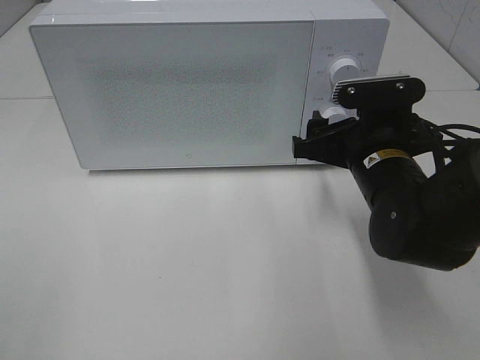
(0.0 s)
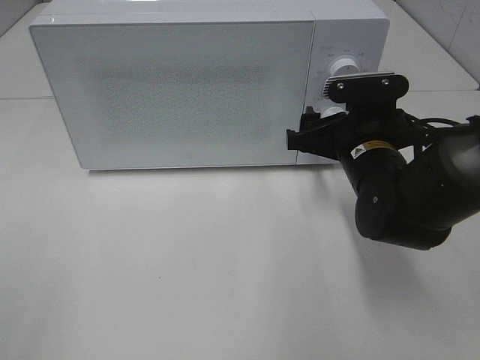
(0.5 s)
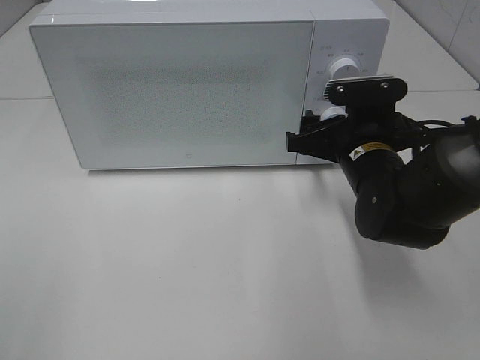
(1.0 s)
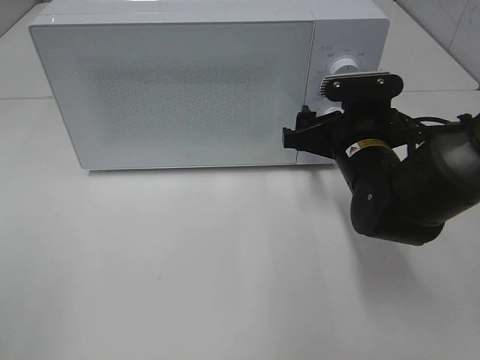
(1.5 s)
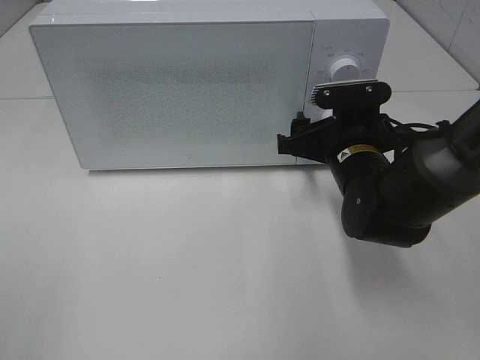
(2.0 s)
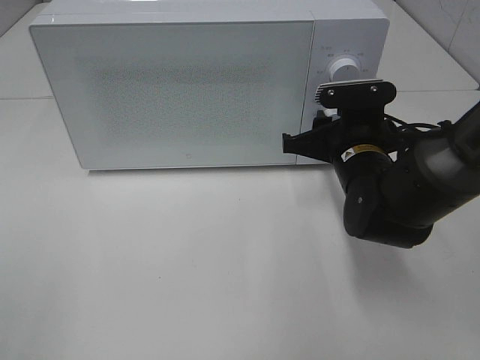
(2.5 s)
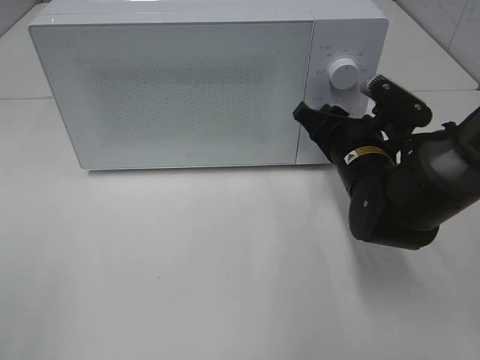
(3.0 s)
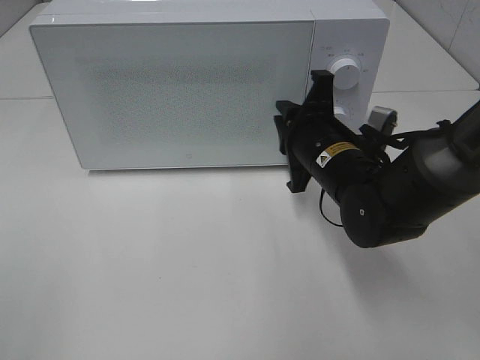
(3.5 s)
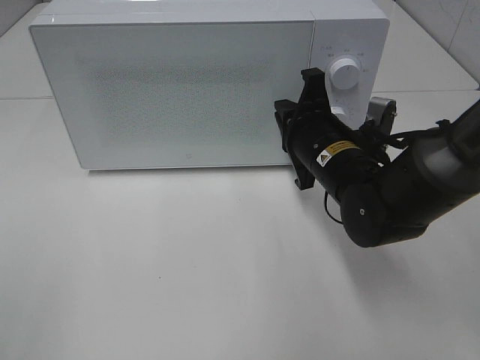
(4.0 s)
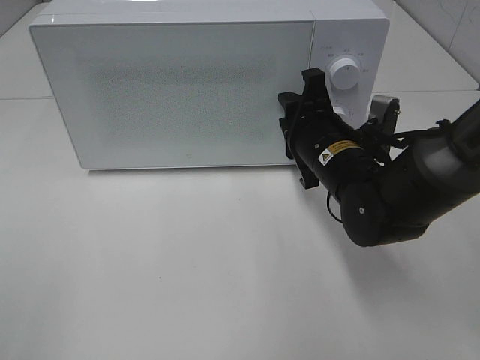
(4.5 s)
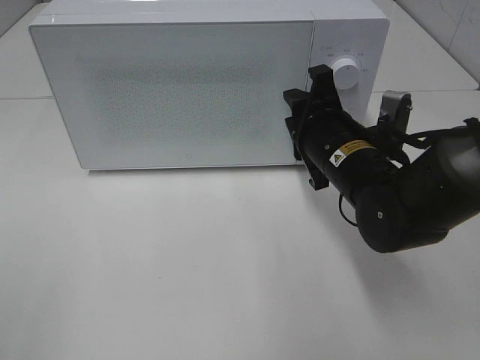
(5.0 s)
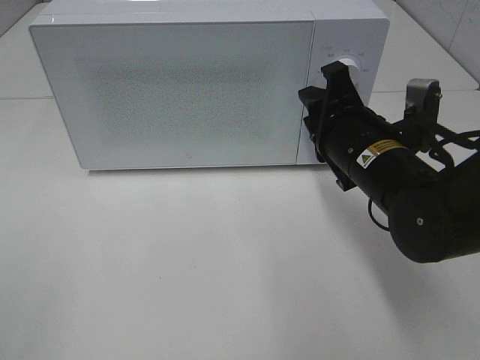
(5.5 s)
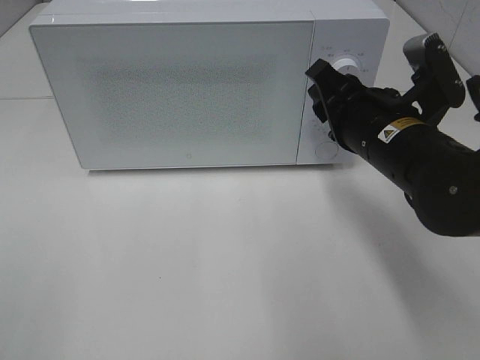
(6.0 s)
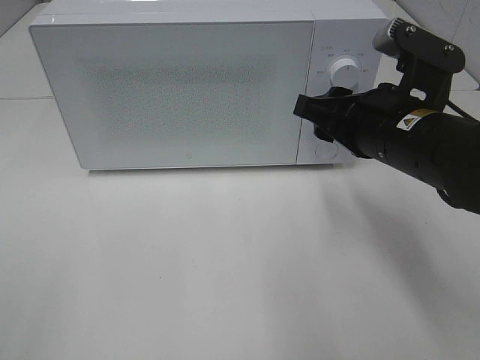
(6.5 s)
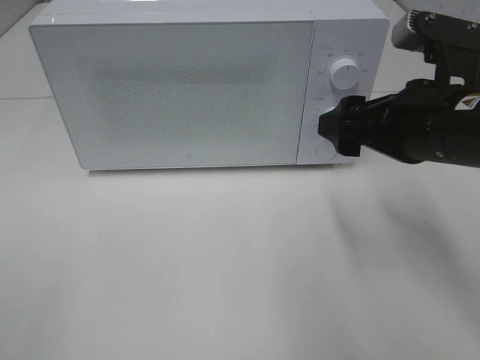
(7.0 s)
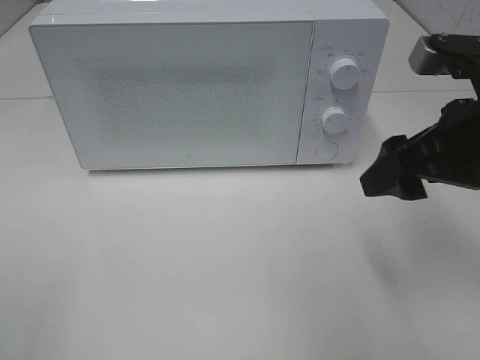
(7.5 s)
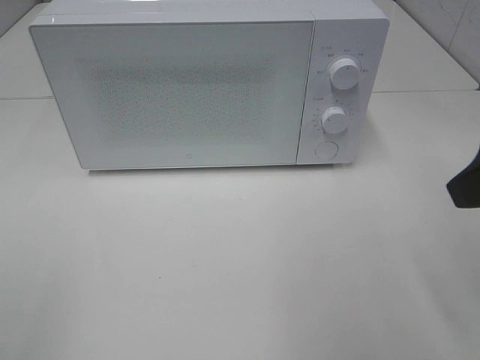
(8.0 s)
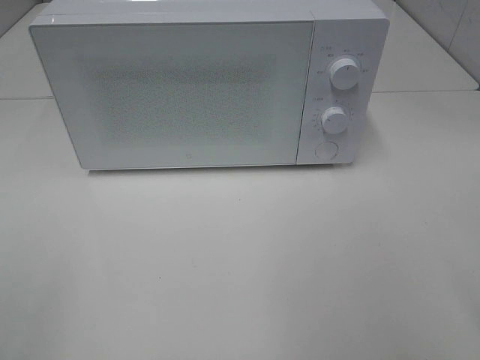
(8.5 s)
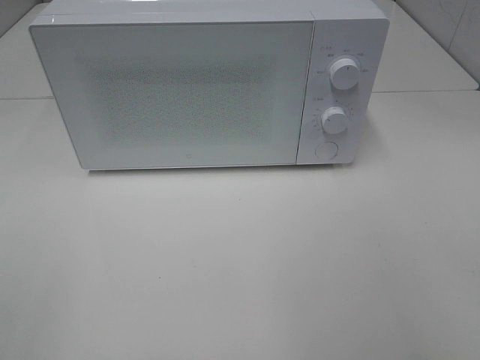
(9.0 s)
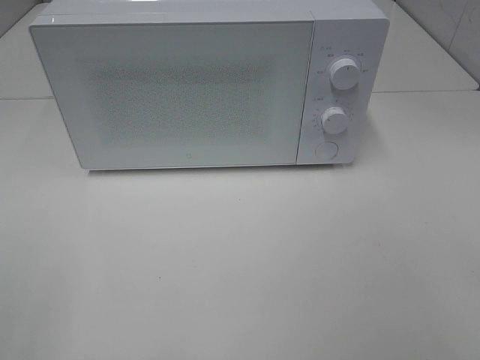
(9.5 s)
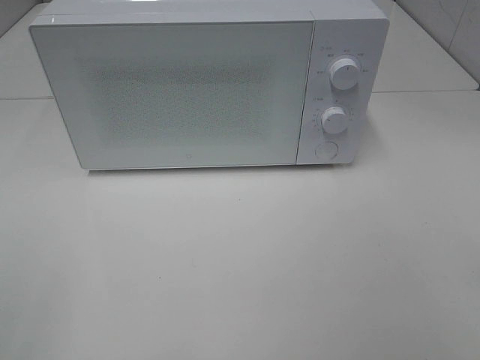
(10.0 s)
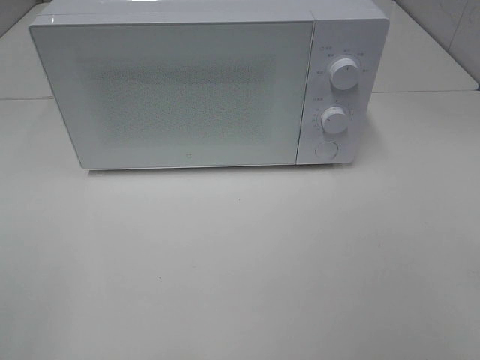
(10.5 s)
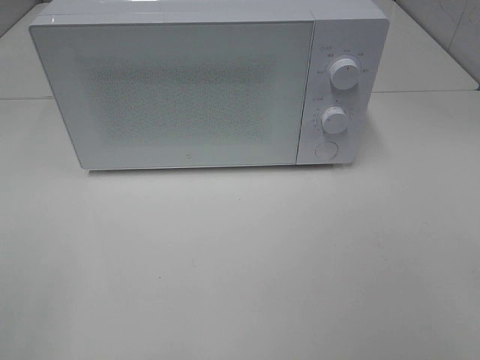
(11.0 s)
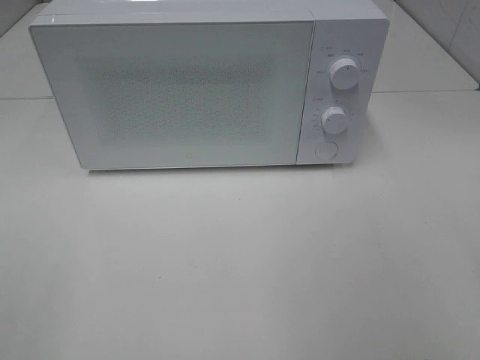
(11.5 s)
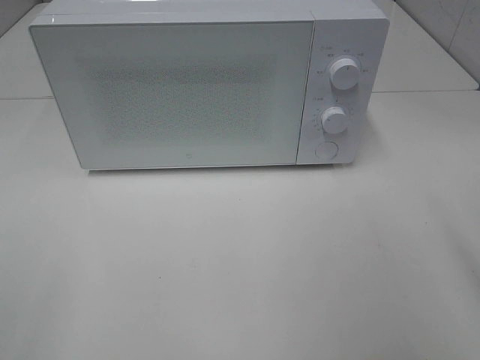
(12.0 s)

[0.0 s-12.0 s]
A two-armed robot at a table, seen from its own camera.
Task of the whole recording: Heat the burger.
Step, 0.0 to 3.0 s: Right hand: twist timer button.
0.0 to 2.0 s: The right gripper ends up some 5 cm from where it was.
2.0 to 4.0 s: The right gripper closes up.
4.0 to 6.0 s: The right gripper goes roughly 5 cm upward.
6.0 to 8.0 s: The right gripper travels upward, backward and to the right by approximately 20 cm, and opens.
8.0 to 10.0 s: The right gripper travels backward by approximately 15 cm.

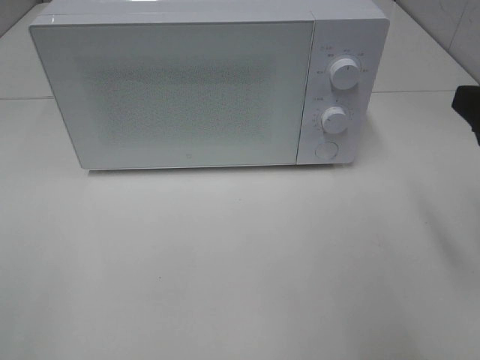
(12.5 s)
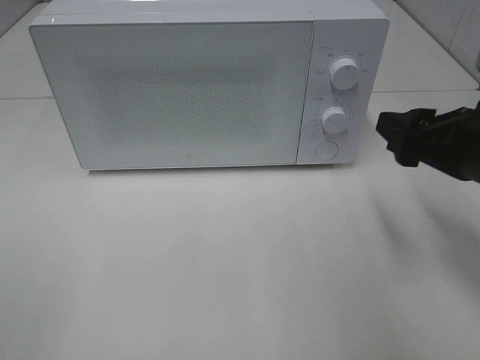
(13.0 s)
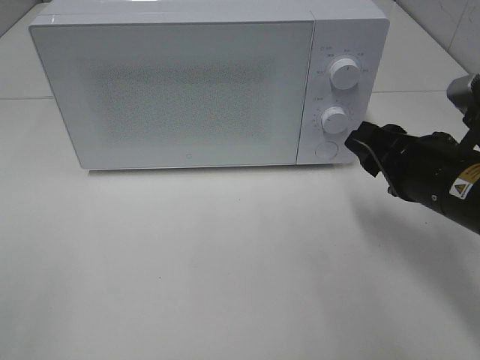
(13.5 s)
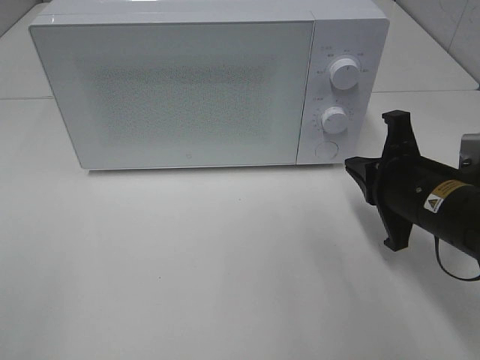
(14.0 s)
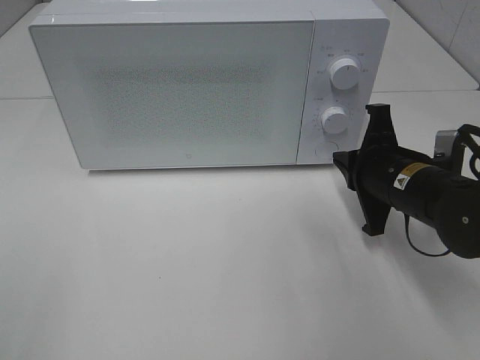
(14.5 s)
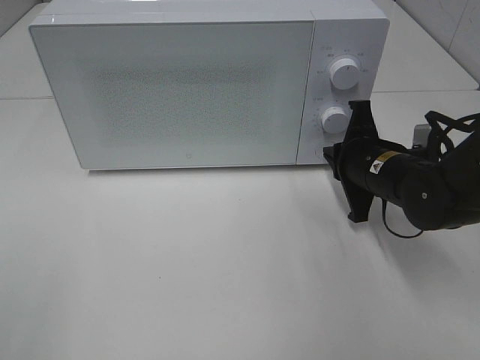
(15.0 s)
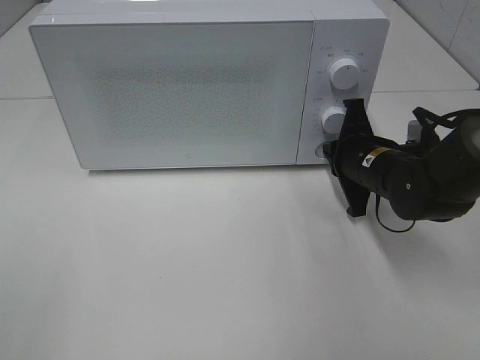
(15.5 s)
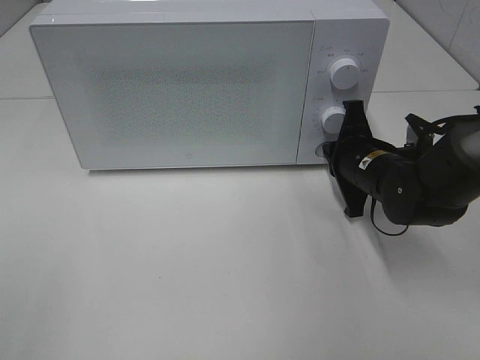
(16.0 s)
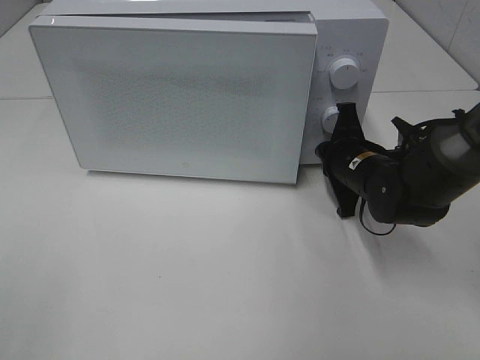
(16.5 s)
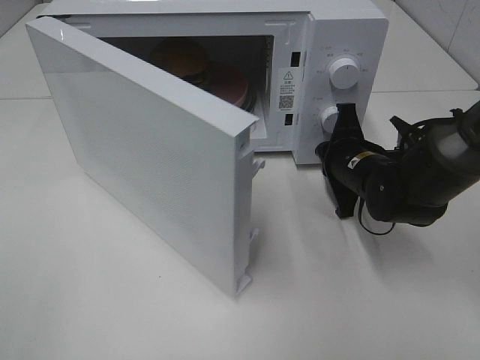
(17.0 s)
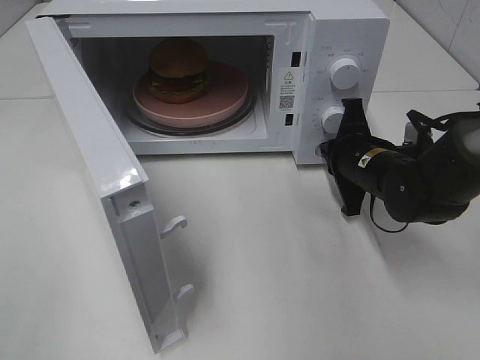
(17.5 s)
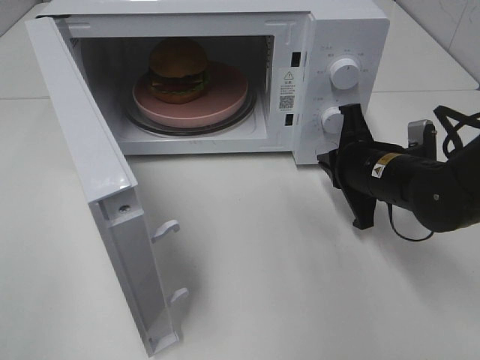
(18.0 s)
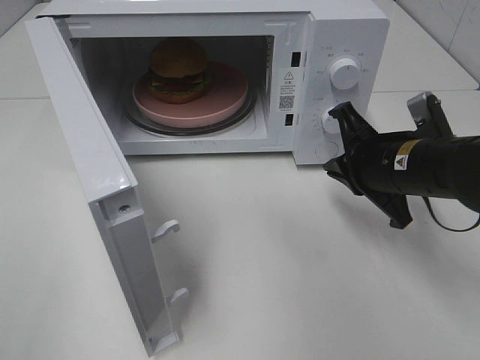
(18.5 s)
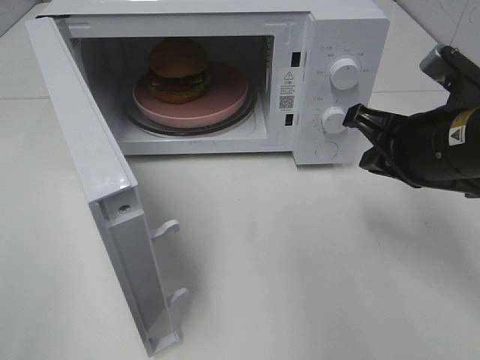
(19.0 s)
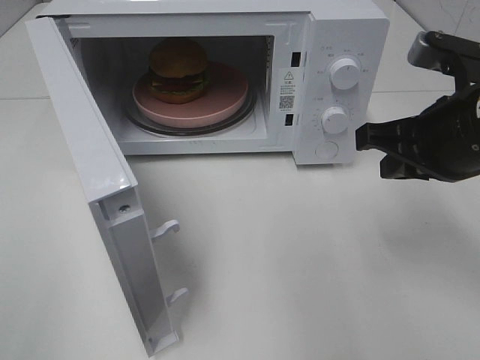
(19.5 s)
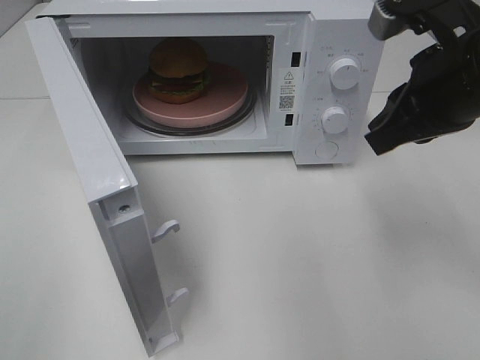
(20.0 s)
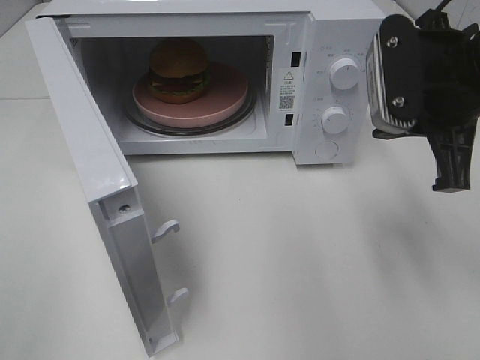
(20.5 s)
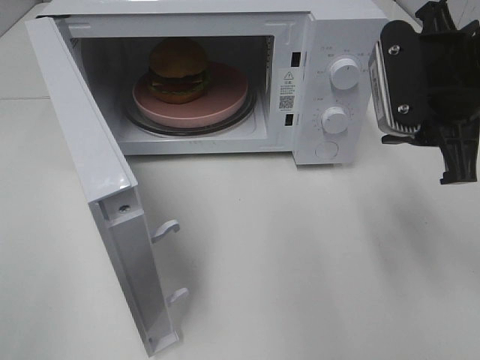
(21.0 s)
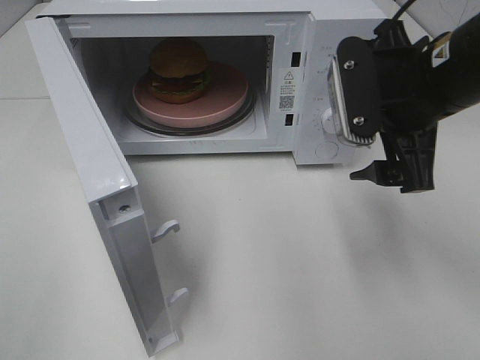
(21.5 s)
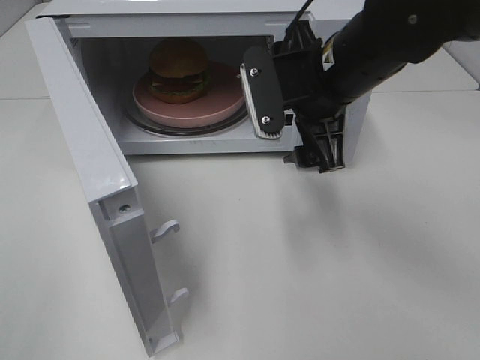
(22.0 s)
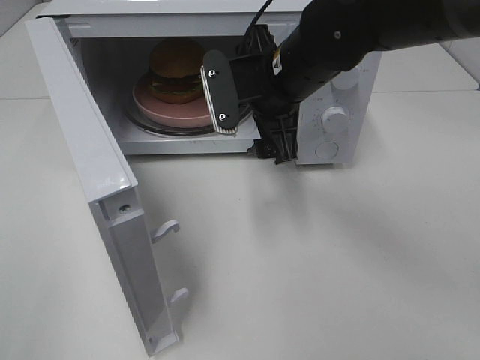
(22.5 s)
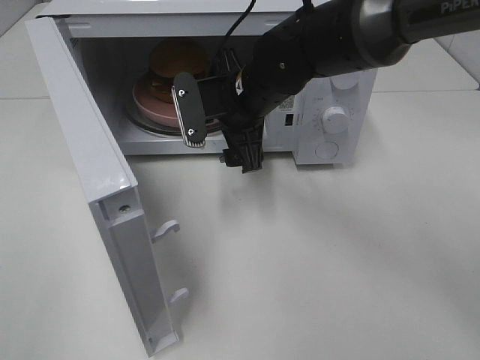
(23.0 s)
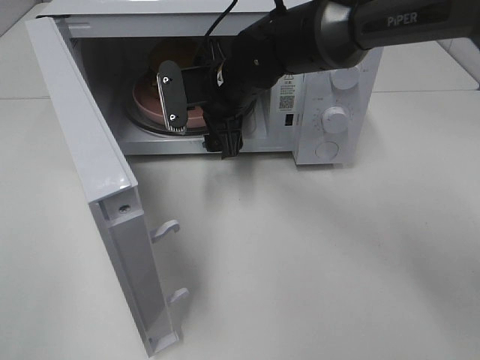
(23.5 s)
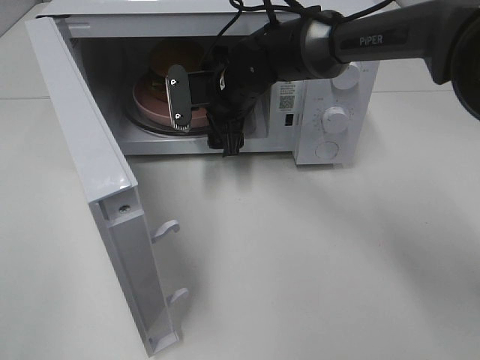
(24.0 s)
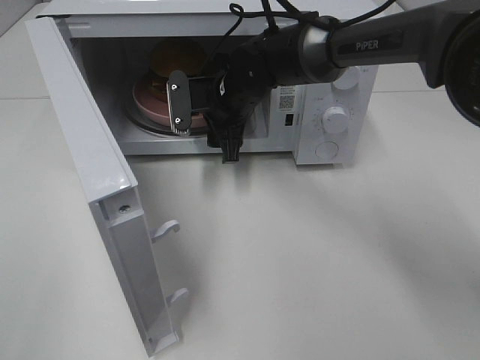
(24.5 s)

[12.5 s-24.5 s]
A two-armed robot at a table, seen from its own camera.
Task of the whole recording: Heat the burger.
Step, 12.5 to 17.5 s: Right hand: press the switch.
12.5 to 14.5 s: The right gripper goes approximately 20 cm downward, forward and to the left, and closes its fingers.
14.5 to 16.5 s: The right gripper heads forward, covering about 5 cm.
16.5 to 18.5 s: The right gripper is displaced backward and upward by some 10 cm.
18.5 to 20.5 s: The right gripper moves upward, some 15 cm.
20.5 to 22.5 s: The right gripper heads to the left, forward and downward, covering approximately 15 cm, and opens.
22.5 to 24.5 s: The right gripper moves forward, downward and to the left, approximately 15 cm.

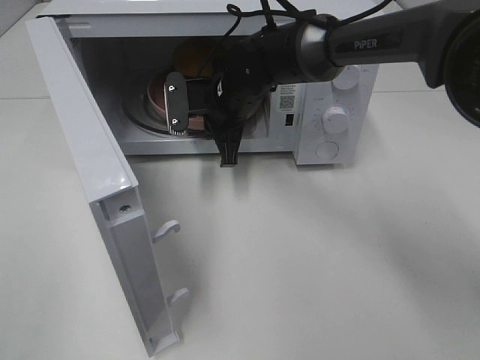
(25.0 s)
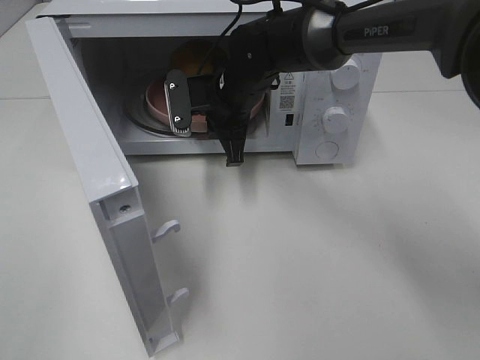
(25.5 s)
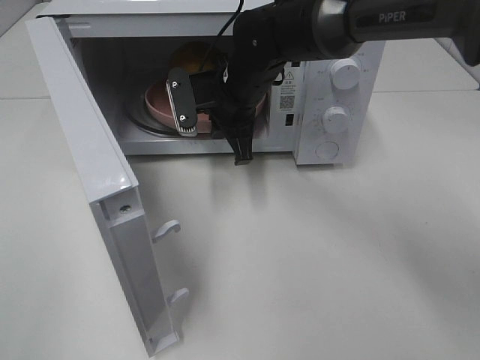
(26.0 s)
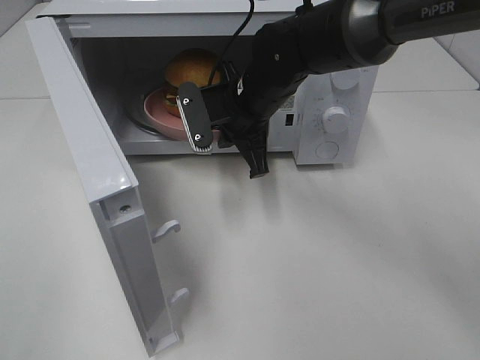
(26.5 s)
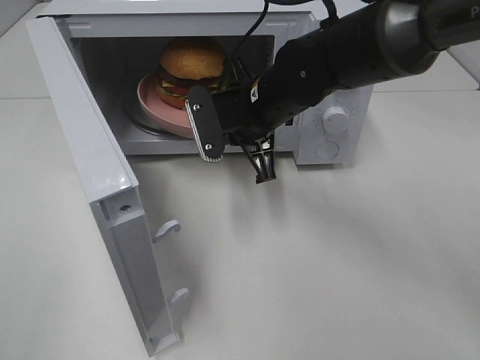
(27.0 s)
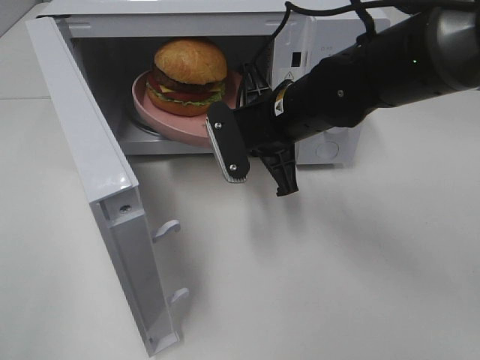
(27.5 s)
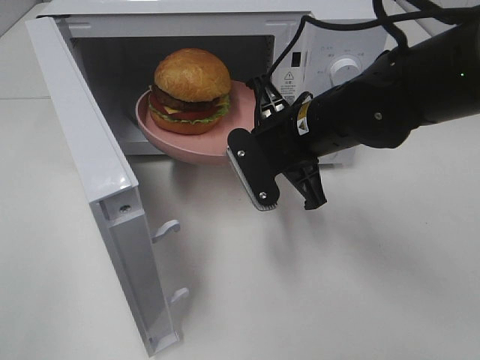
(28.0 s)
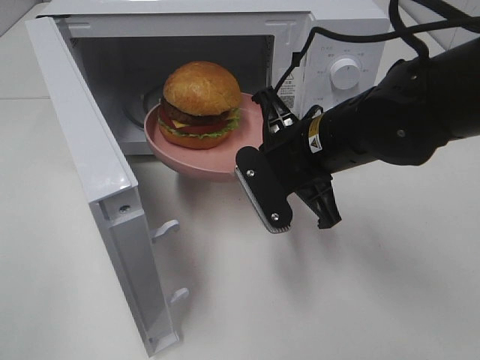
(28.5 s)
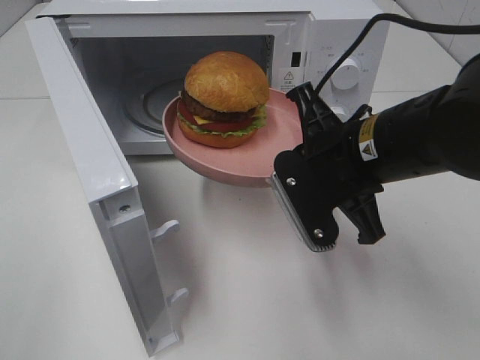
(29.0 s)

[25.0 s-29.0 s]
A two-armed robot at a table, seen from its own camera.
Task of the whole recording: Heat the burger.
25.0 to 27.0 s: The right gripper heads backward, covering about 5 cm.
27.0 to 29.0 s: The right gripper heads backward and to the right, covering some 15 cm.
